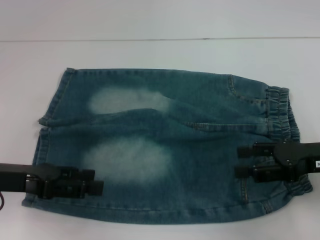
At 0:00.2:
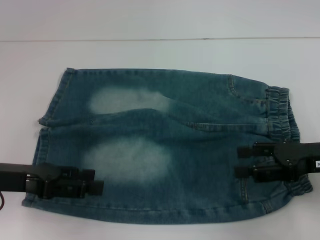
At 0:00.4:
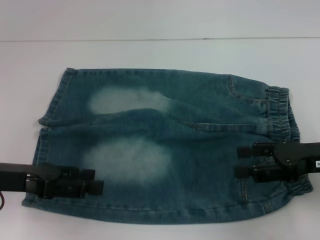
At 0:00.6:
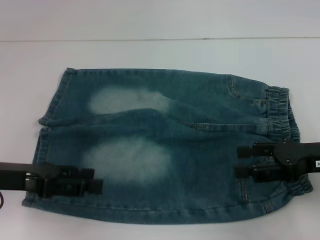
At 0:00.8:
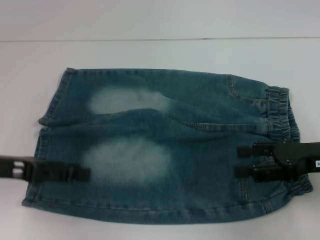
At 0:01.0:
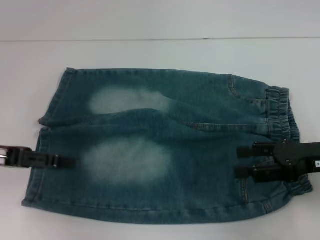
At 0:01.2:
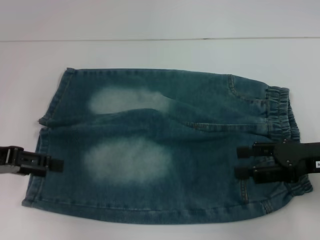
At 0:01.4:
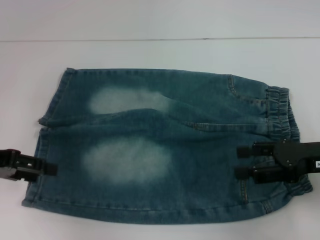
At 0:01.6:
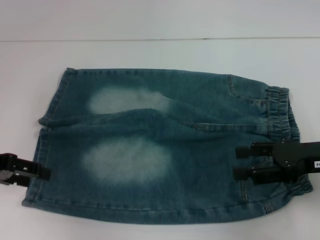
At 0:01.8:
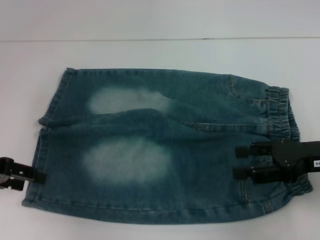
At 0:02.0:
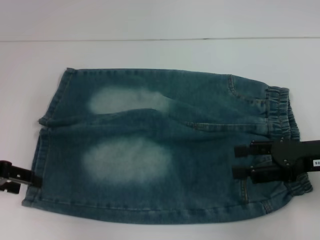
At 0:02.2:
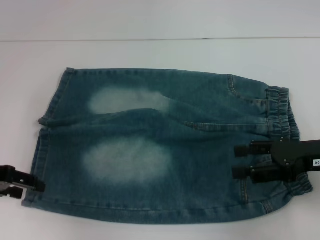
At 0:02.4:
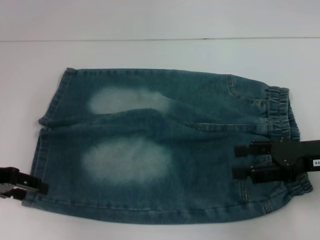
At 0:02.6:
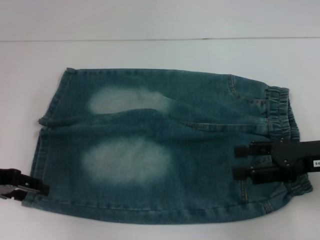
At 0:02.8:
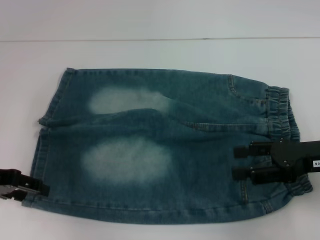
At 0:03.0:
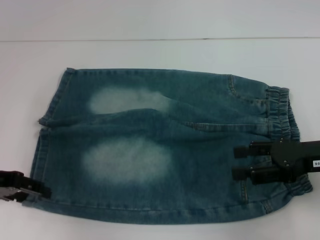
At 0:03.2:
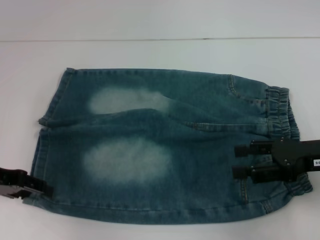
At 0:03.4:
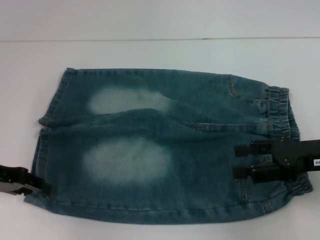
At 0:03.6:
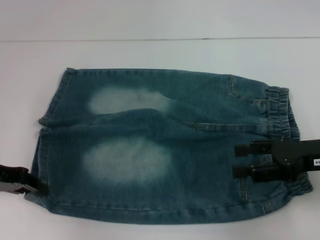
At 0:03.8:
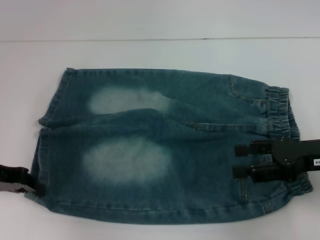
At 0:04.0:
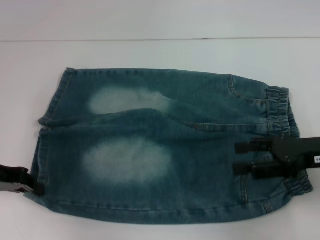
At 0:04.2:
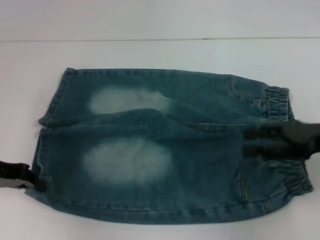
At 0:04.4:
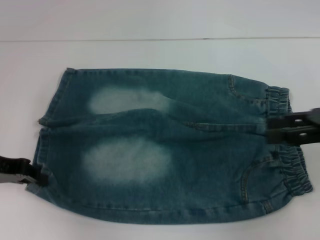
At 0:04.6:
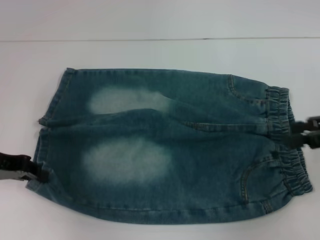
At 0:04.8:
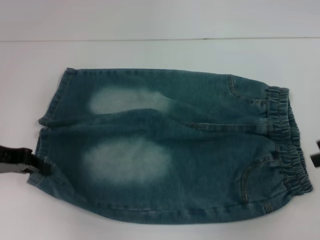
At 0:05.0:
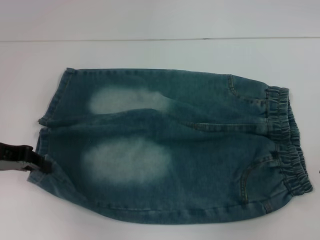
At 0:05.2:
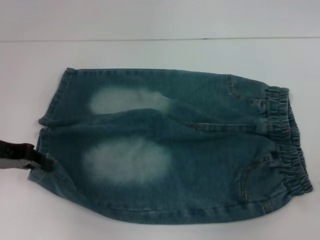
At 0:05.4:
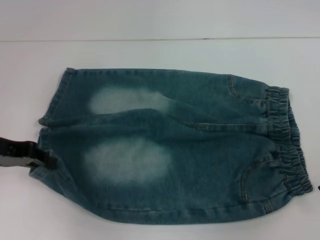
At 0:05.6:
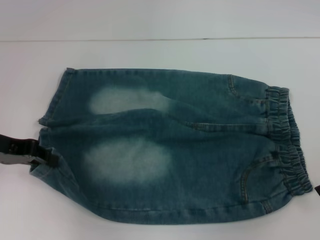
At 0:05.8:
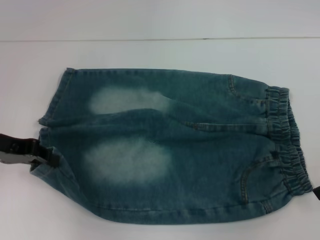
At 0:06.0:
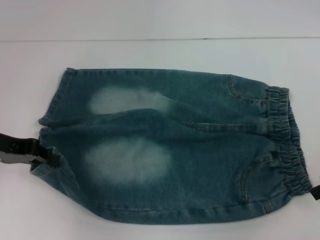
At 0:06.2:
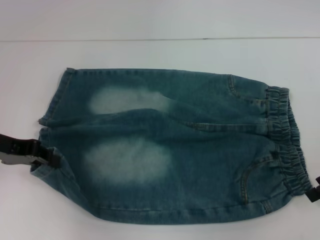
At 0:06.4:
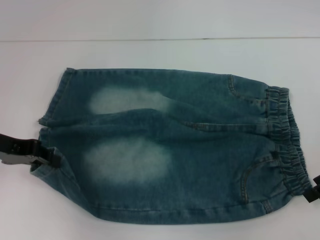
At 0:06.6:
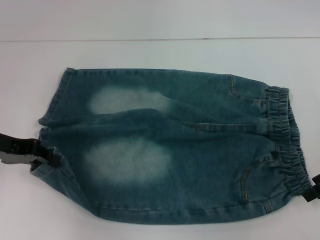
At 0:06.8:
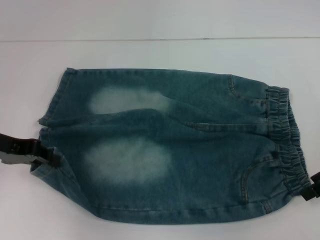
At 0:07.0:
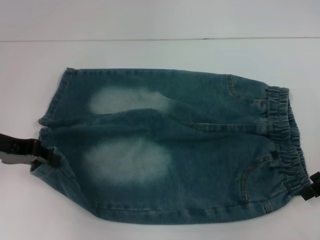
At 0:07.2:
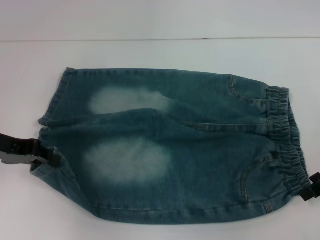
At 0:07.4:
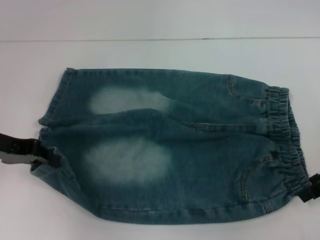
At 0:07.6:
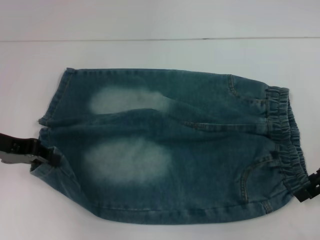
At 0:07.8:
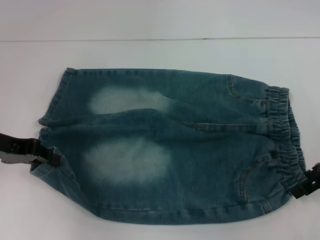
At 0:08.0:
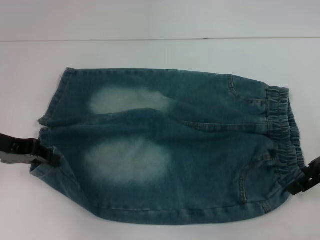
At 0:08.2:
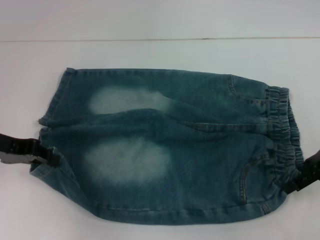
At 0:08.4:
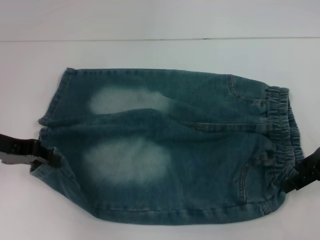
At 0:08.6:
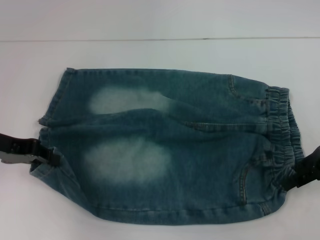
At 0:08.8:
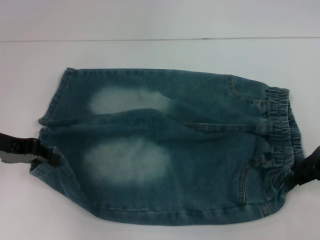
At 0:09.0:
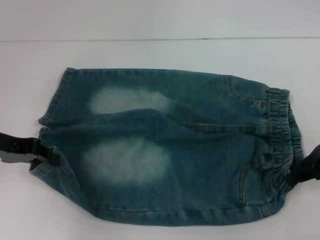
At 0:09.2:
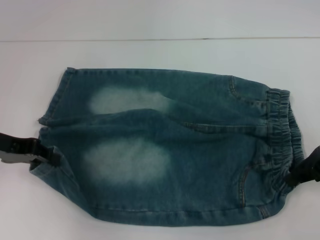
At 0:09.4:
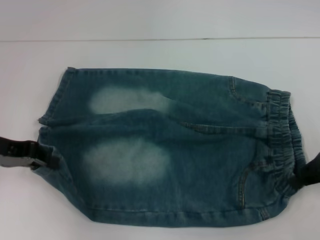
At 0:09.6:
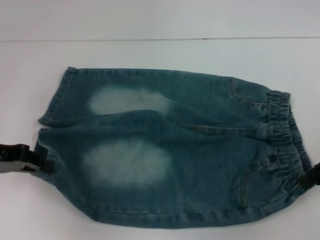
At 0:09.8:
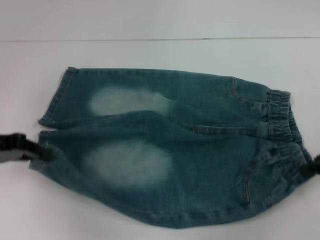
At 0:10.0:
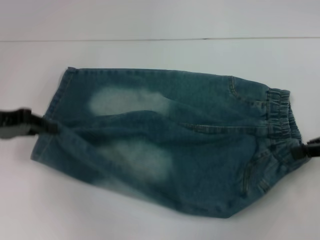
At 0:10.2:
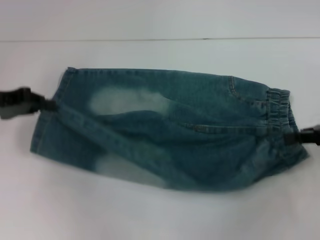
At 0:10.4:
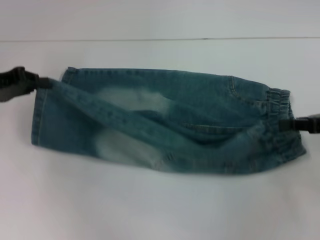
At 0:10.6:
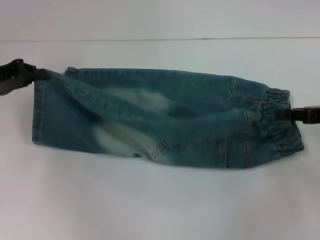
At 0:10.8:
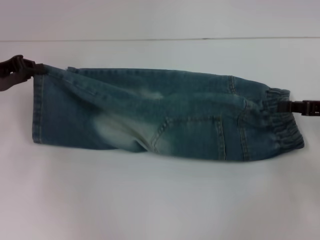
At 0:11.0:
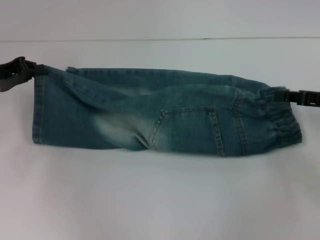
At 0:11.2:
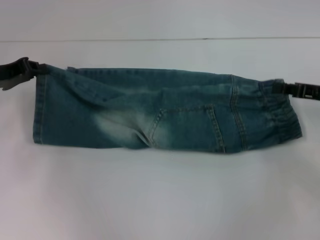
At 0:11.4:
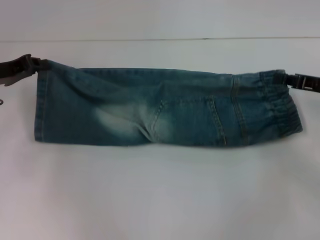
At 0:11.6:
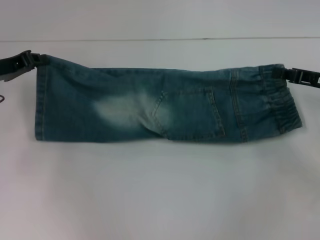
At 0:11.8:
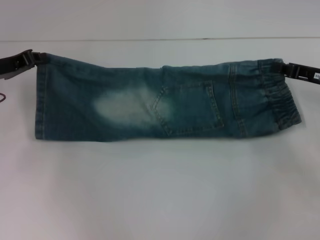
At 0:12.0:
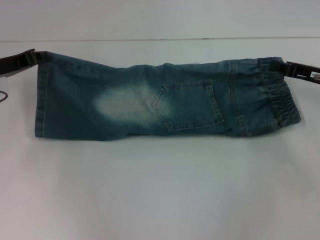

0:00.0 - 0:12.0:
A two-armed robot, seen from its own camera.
Step, 0:00.0 - 0:04.2: Grab the lower left pant leg with your left hand.
Step, 0:04.4 - 0:09.4: Hold the lower right waistband with your right hand.
0:00.0 - 0:01.6: The left gripper ends up roughly 5 cm from where it was.
0:01.6 - 0:03.0: The grippers make only small movements.
0:03.0 - 0:04.4: The left gripper closes its fingers. Meanwhile the right gripper travels upward by about 5 cm.
0:07.6 - 0:09.0: The right gripper closes up.
0:09.0 - 0:10.4: The right gripper shifts by about 5 cm.
0:10.4 - 0:12.0: The left gripper moves about 5 cm, while the right gripper goes approximately 5 cm forward.

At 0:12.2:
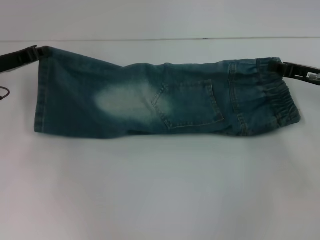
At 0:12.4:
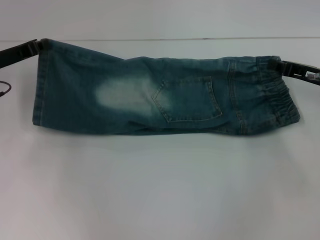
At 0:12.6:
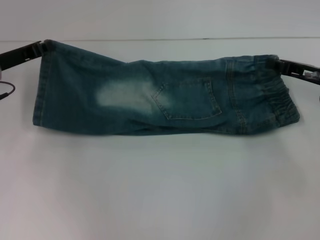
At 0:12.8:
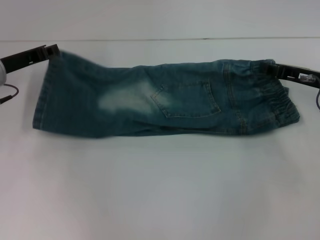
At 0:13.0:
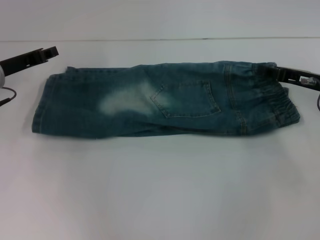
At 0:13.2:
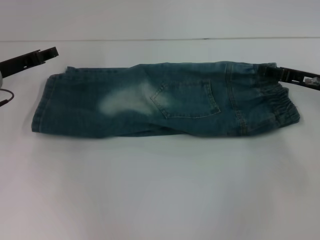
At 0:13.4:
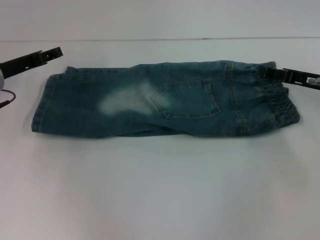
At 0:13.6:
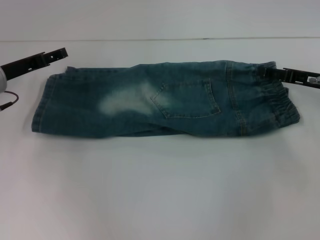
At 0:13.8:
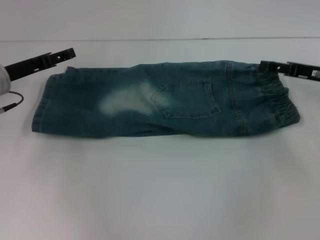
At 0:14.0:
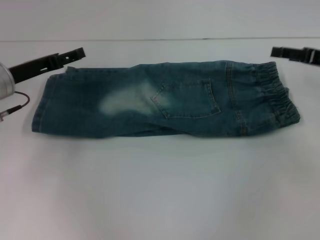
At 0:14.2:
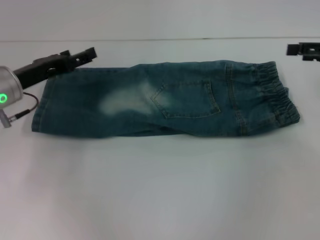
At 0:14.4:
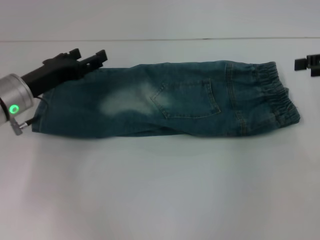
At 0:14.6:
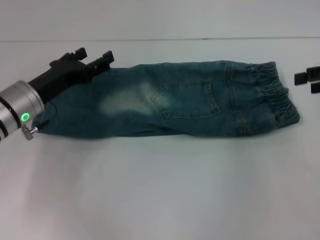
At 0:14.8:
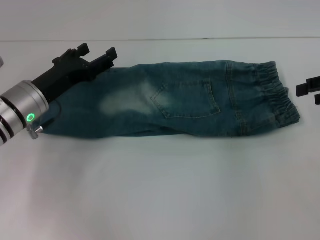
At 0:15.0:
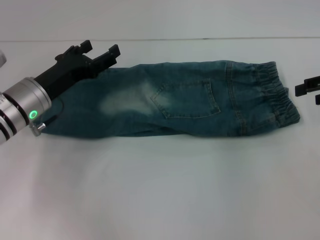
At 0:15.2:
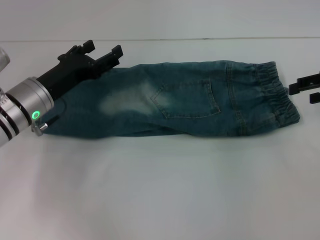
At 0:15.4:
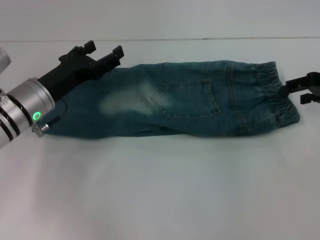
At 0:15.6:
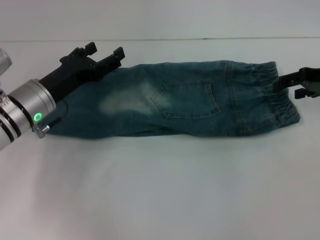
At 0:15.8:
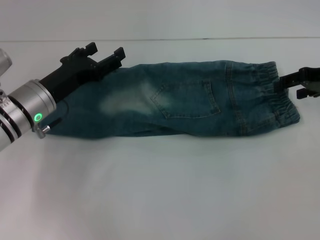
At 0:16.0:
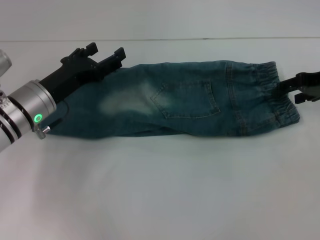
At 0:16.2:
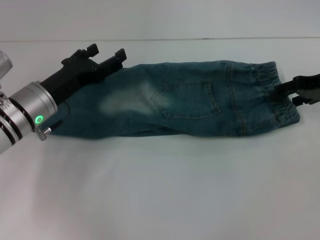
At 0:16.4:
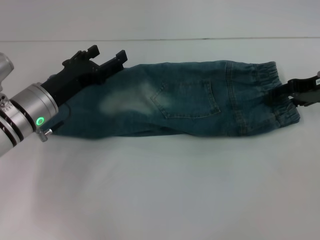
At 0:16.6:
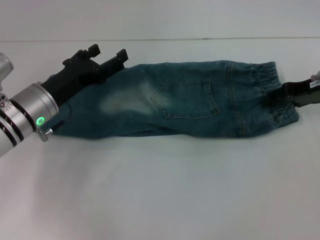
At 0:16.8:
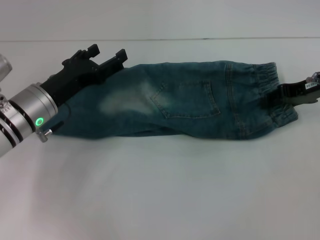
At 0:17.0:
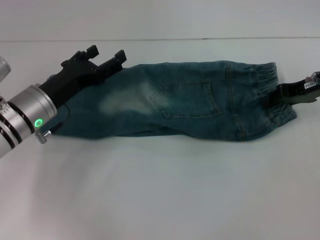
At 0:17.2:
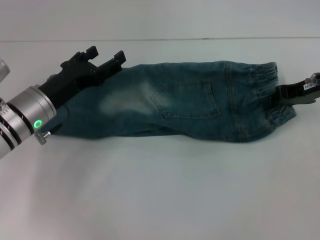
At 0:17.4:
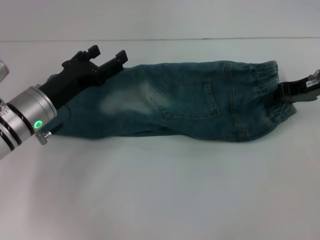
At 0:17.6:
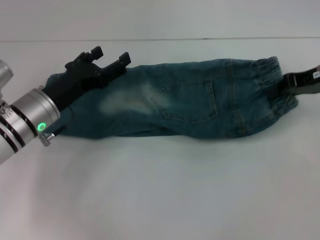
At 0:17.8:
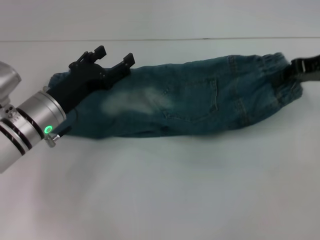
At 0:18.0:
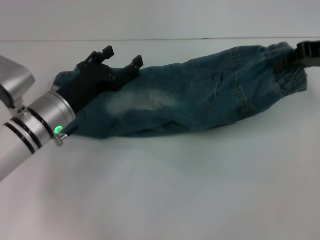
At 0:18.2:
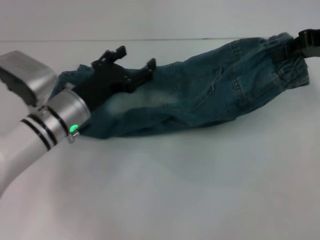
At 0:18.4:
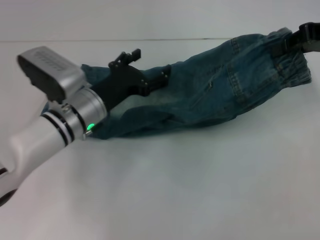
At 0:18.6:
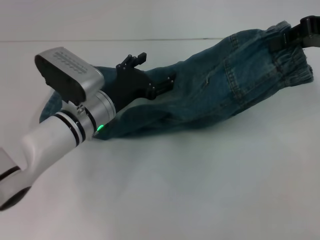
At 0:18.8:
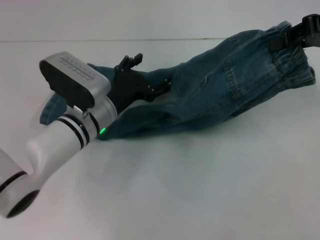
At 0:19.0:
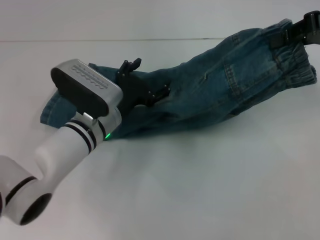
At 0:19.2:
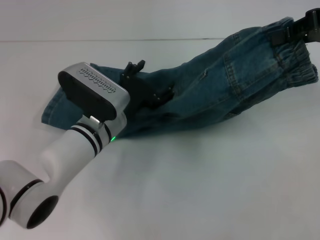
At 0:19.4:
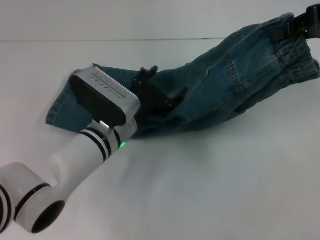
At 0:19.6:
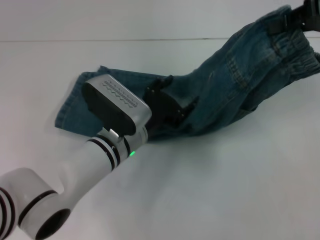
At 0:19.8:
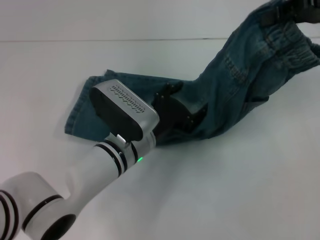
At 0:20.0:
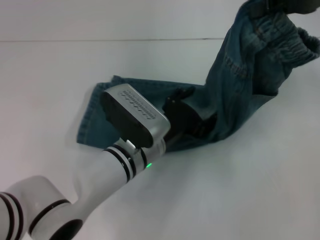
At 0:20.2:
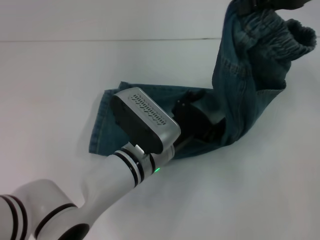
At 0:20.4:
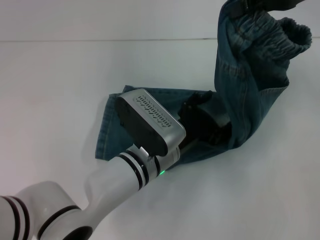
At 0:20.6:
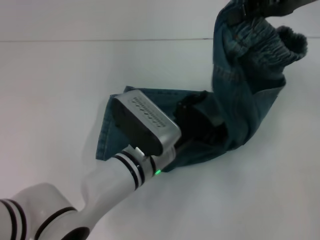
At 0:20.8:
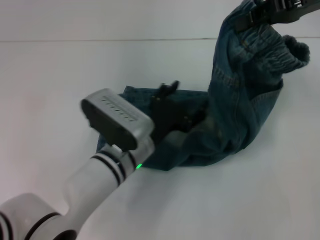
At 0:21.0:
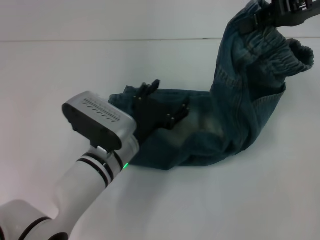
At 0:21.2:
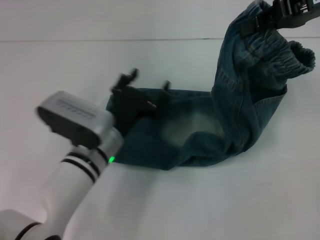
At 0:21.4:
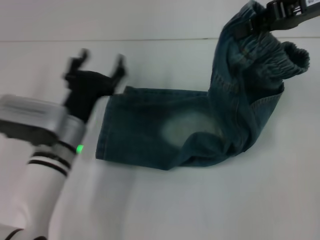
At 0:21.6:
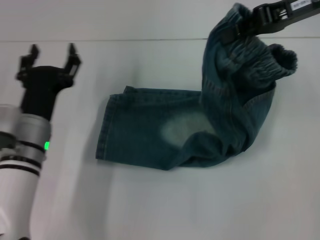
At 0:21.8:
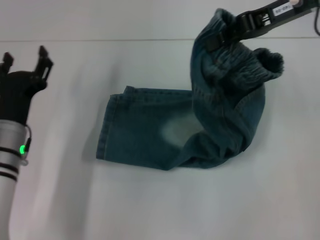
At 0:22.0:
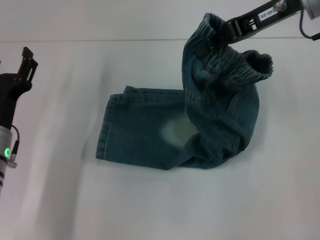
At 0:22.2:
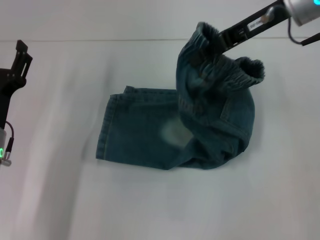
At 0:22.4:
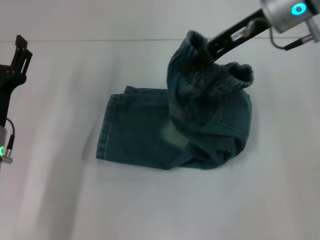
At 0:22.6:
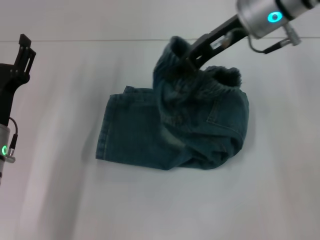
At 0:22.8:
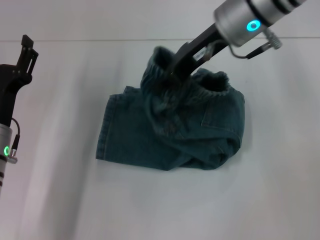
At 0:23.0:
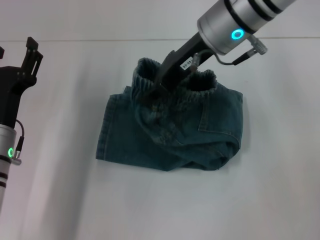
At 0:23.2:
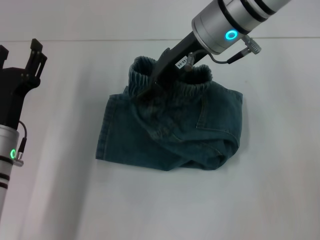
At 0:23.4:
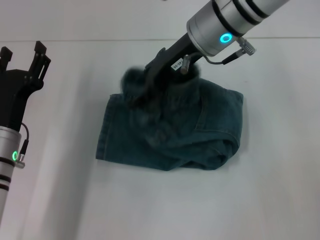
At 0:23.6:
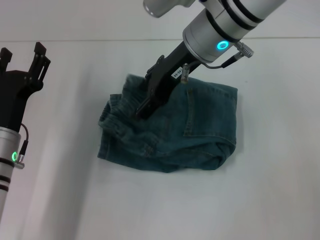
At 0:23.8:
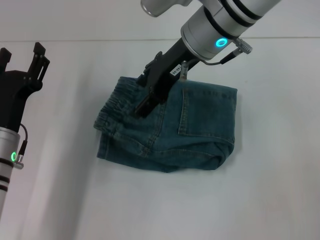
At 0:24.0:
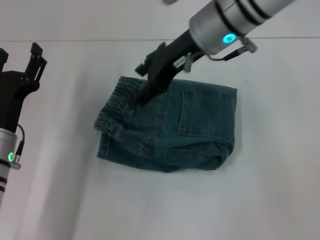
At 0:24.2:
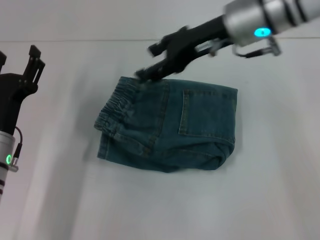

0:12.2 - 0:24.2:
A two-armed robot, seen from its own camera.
Step, 0:13.4 - 0:17.2: Grab the waistband with your right hand.
Step, 0:17.4 - 0:20.4: Press the middle of the pants with your left hand.
Step, 0:20.6 - 0:23.6: Fold to the left with your right hand.
0:12.2 - 0:13.8: The left gripper opens its fingers. The right gripper opens.
0:13.8 - 0:15.2: The right gripper is displaced upward by about 5 cm. Meanwhile the left gripper shifts approximately 5 cm to the right.
0:15.2 - 0:16.6: The right gripper heads to the left, covering some 5 cm.
0:16.6 - 0:18.2: The right gripper moves upward, approximately 10 cm, and closes up.
0:18.2 - 0:19.8: The left gripper travels to the right by roughly 10 cm.
0:21.2 - 0:22.6: Both grippers travel together to the left, roughly 15 cm.
0:22.6 - 0:24.2: The right gripper opens up.
